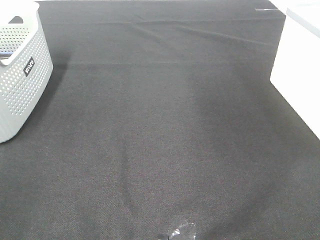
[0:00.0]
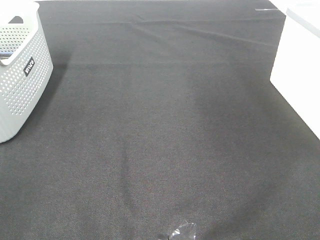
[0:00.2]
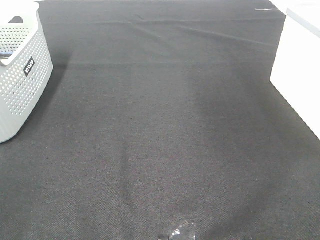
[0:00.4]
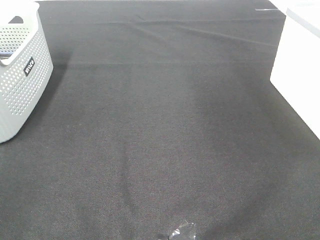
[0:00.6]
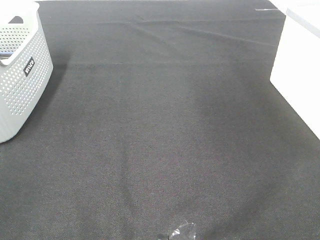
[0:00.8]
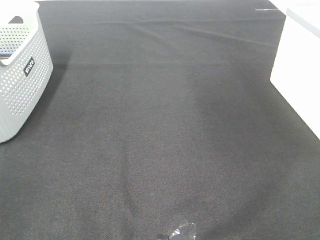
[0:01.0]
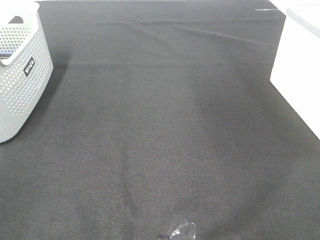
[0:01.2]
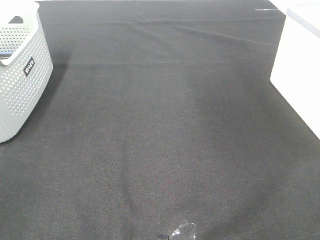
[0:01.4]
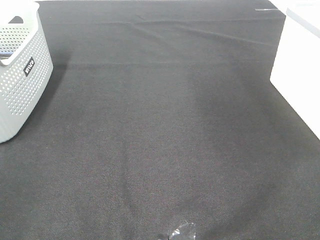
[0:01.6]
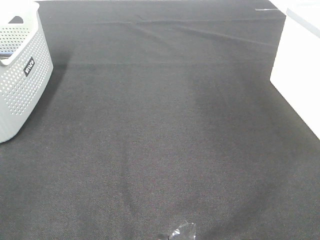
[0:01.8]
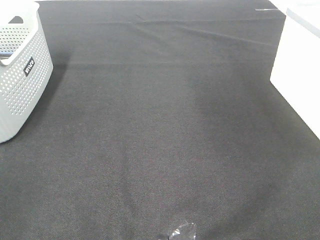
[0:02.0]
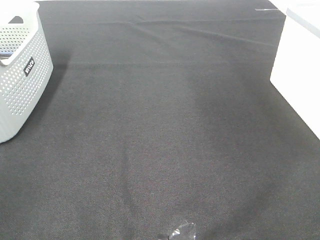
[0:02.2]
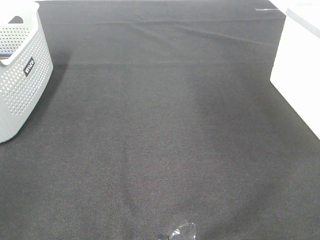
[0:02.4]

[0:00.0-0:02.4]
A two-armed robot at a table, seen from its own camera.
0:01.2 to 0:02.4: Both grippers stay put.

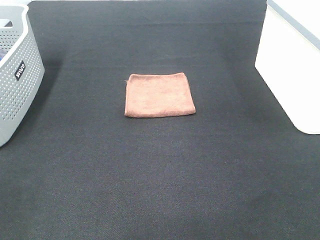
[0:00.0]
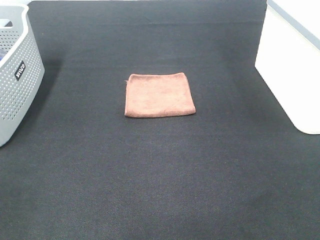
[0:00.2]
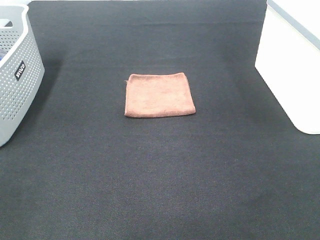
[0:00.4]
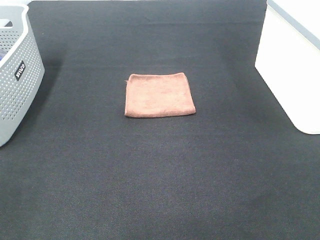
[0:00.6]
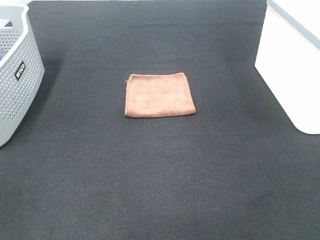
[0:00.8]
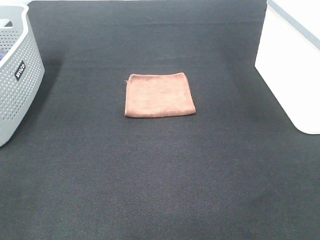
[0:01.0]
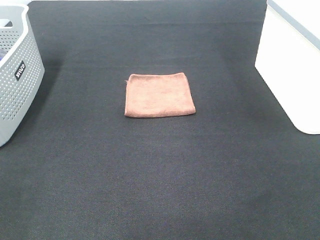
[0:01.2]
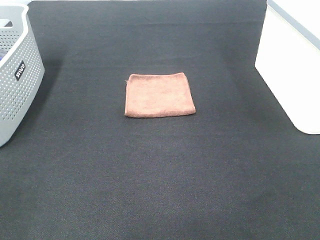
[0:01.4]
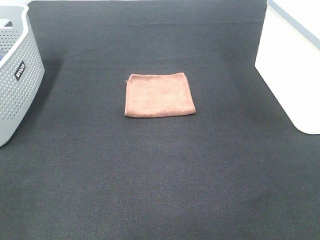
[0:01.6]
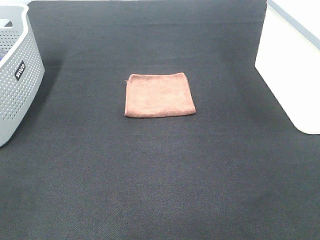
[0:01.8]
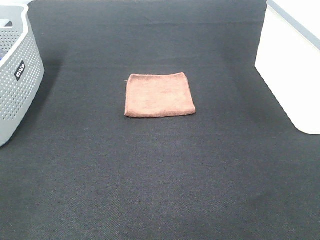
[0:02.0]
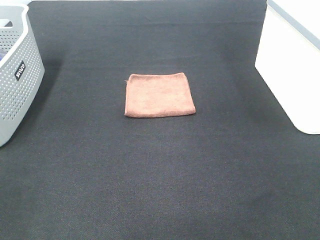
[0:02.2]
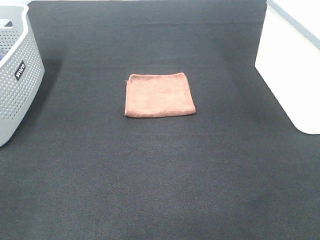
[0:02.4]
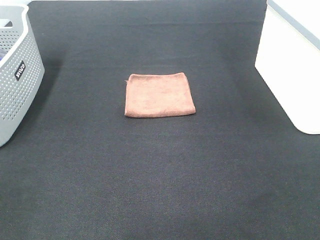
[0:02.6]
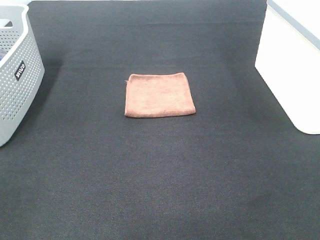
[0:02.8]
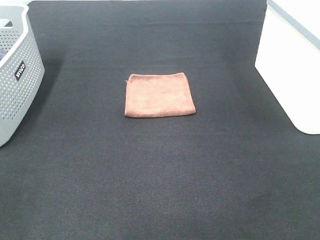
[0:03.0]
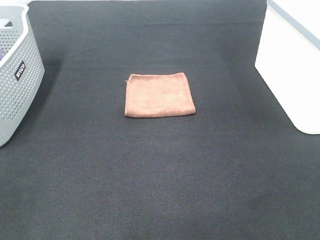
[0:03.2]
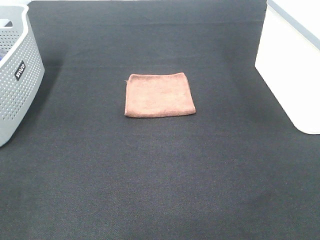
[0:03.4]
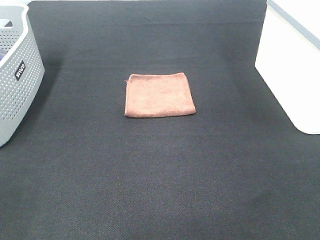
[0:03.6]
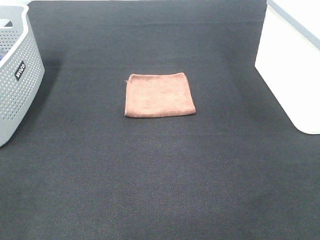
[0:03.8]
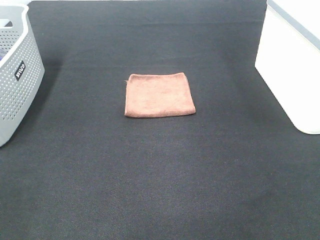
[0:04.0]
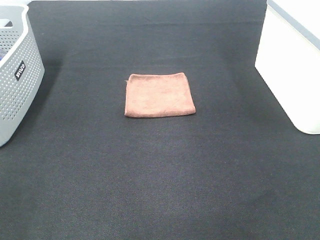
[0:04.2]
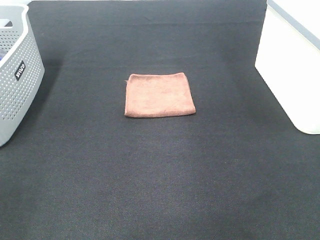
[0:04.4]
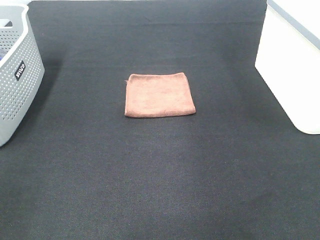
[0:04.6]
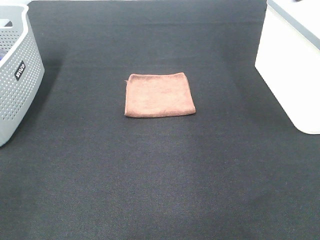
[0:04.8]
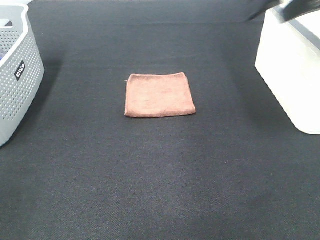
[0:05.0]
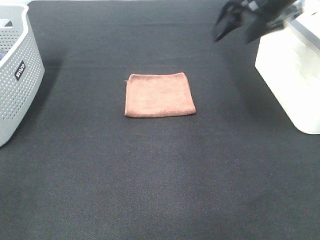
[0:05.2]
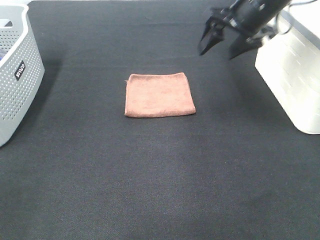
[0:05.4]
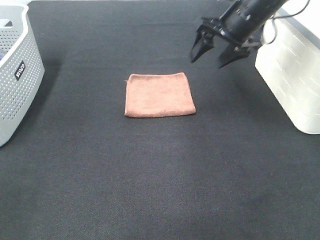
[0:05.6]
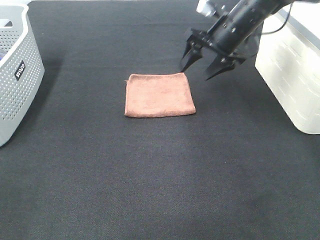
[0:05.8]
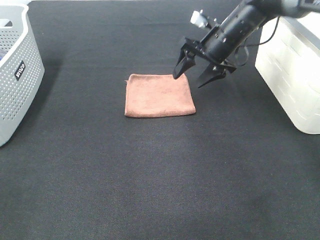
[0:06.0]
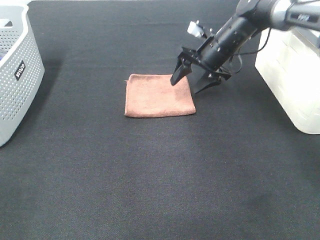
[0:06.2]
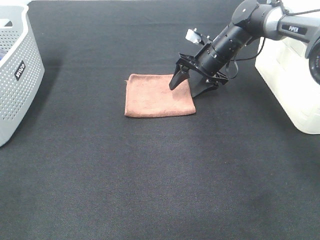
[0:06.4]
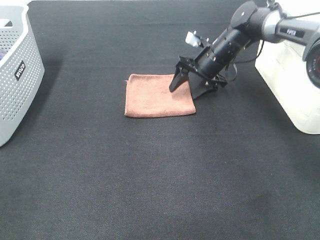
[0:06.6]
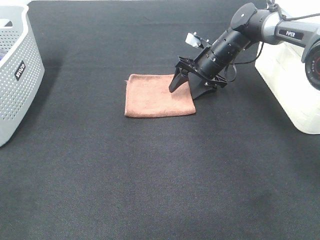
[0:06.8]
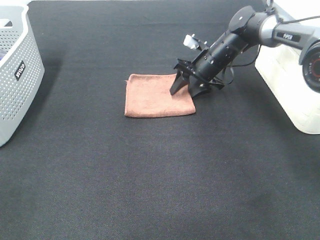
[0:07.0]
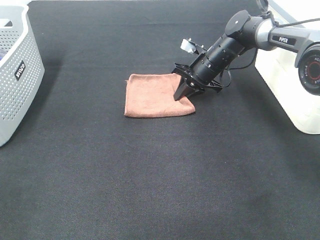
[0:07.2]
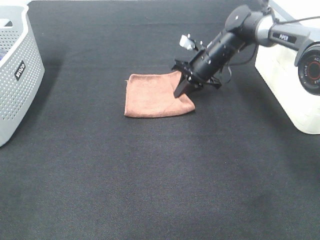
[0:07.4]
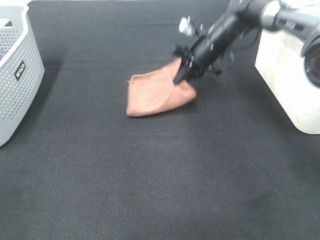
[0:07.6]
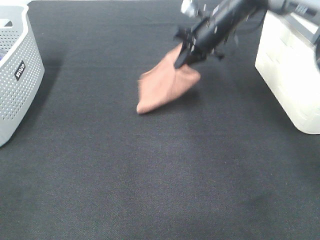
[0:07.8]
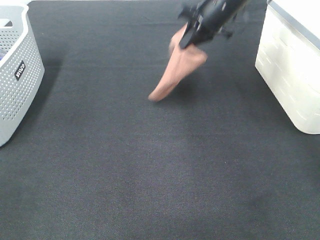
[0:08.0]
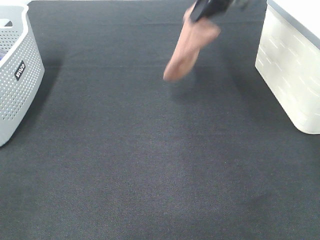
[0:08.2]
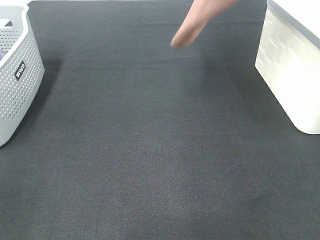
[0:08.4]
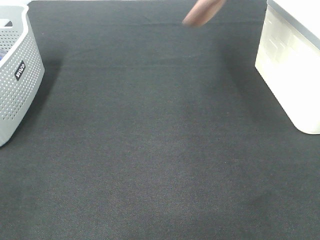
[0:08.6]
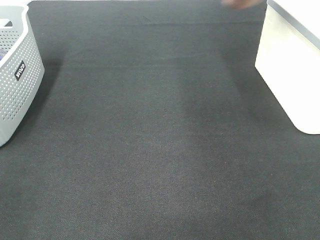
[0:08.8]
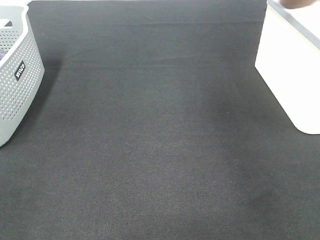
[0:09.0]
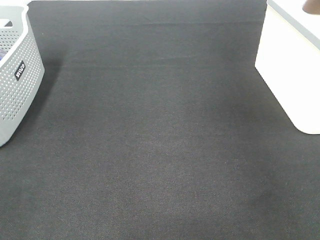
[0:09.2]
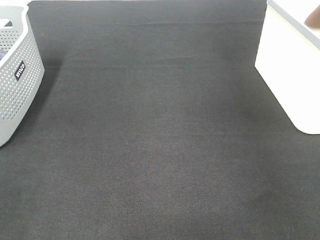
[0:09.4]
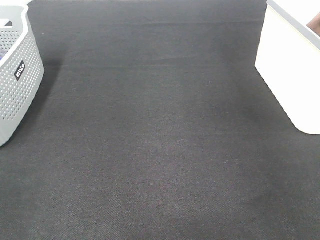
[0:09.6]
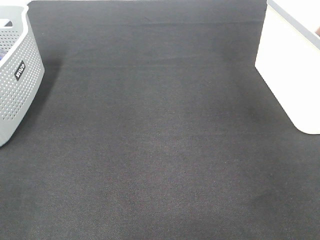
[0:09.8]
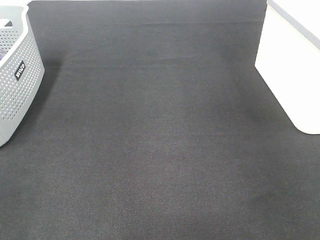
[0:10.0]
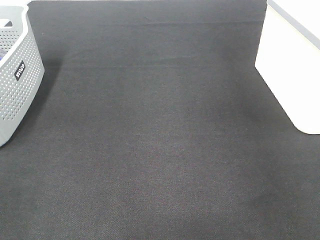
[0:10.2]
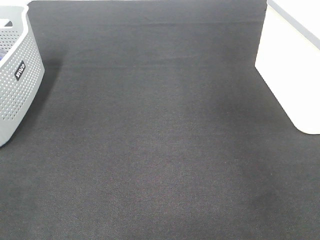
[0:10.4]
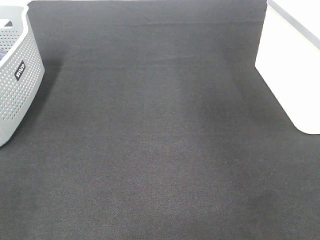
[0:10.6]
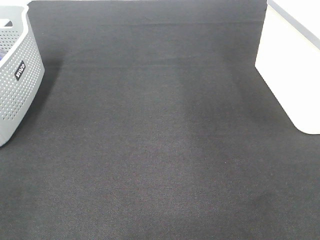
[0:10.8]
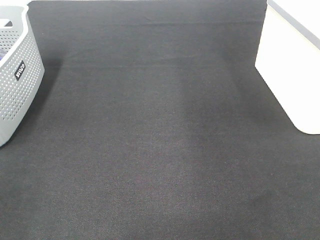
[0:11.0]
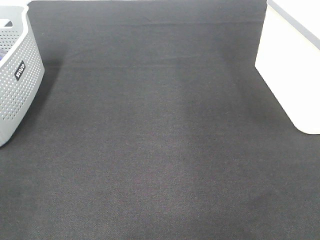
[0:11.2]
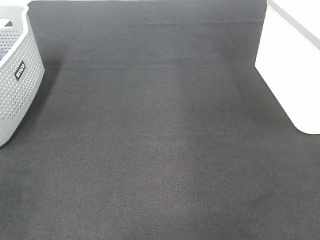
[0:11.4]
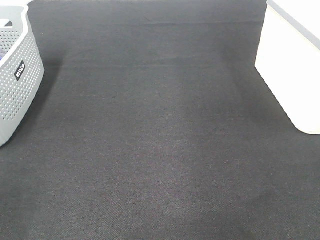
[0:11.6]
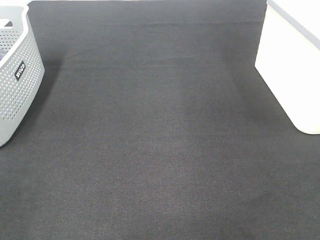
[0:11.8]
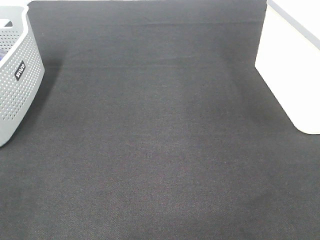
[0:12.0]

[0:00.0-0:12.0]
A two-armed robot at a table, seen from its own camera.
Step, 0:00.0 to 0:07.4: Right hand: grab the folded brown towel.
Step, 0:07.6 to 0:10.4: Right hand: place the brown towel in right basket.
0:00.0 to 0:03.0: Both grippers stay put.
0:04.4 to 0:06.0: The right gripper moves forward, downward and to the left, about 40 cm.
0:06.0 to 0:07.6: The right gripper closes up.
0:07.6 to 0:09.0: The right gripper goes some 35 cm upward and to the right.

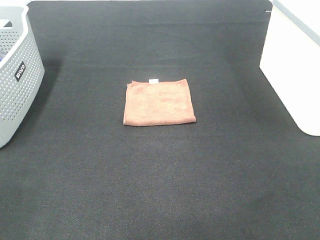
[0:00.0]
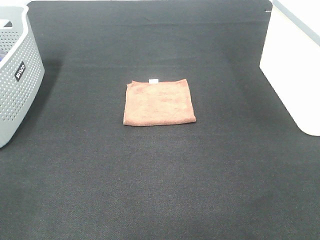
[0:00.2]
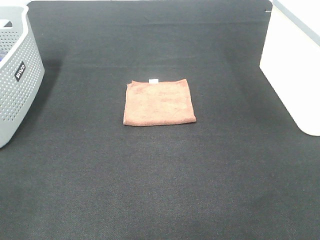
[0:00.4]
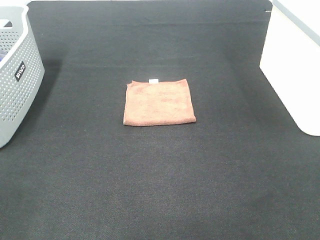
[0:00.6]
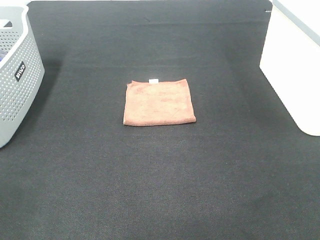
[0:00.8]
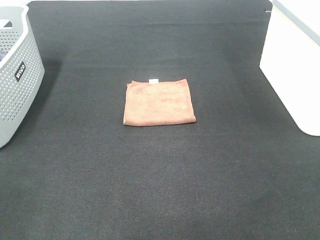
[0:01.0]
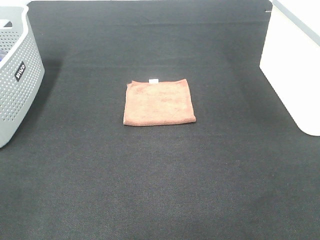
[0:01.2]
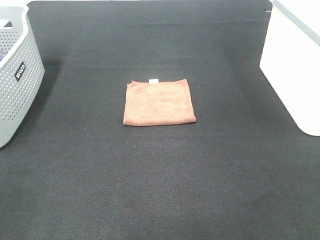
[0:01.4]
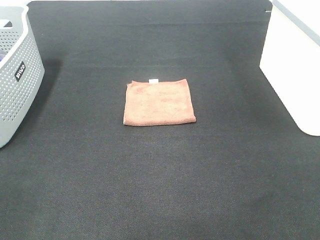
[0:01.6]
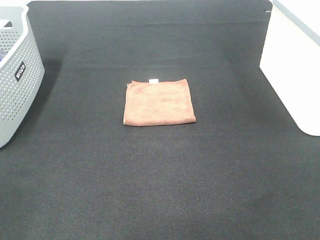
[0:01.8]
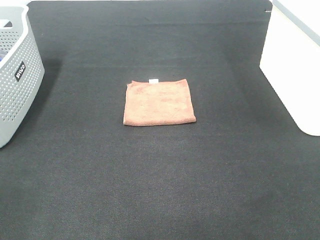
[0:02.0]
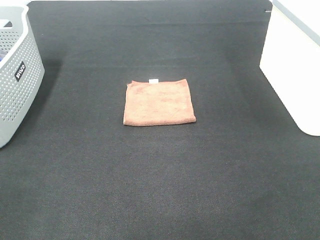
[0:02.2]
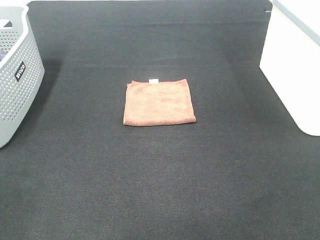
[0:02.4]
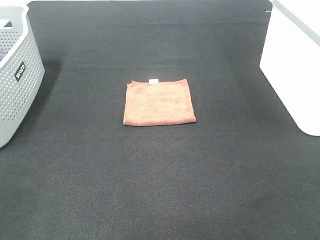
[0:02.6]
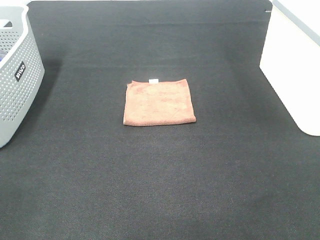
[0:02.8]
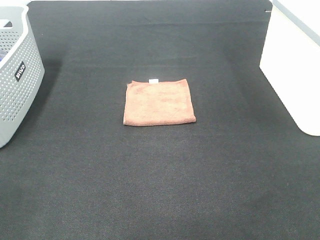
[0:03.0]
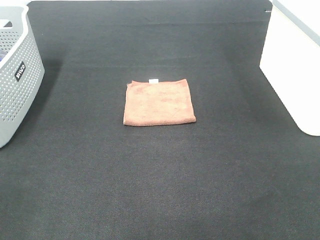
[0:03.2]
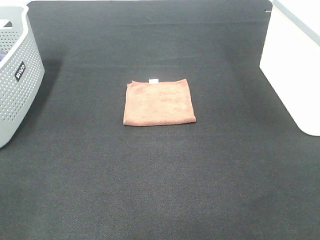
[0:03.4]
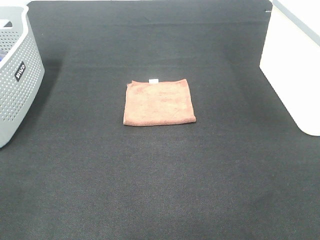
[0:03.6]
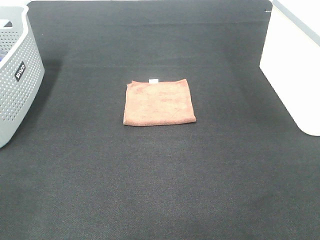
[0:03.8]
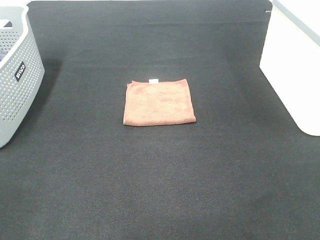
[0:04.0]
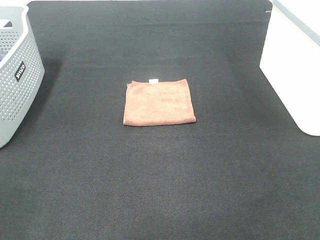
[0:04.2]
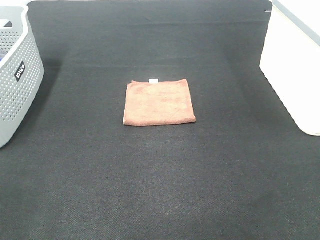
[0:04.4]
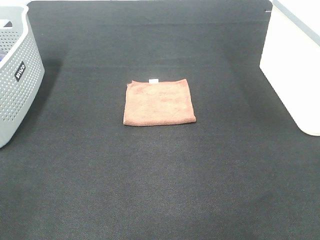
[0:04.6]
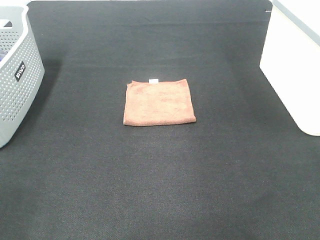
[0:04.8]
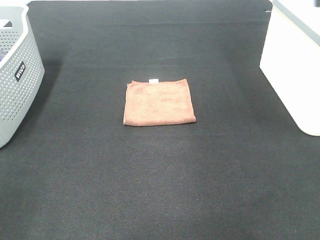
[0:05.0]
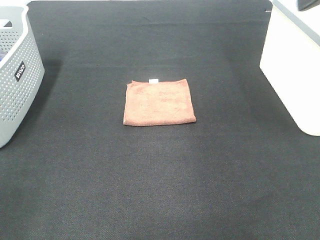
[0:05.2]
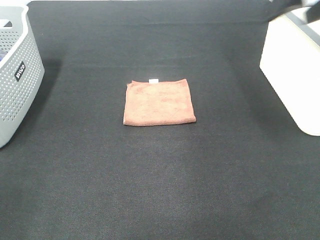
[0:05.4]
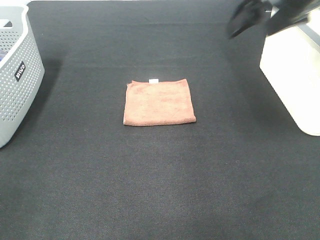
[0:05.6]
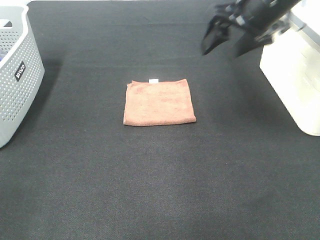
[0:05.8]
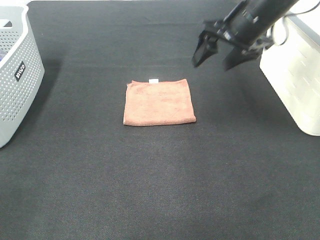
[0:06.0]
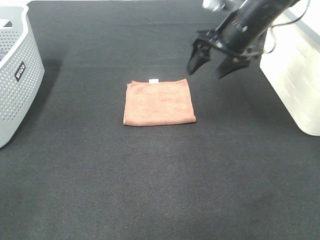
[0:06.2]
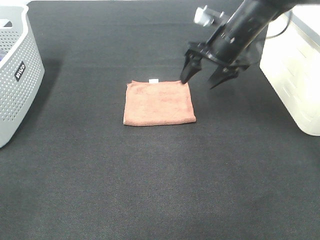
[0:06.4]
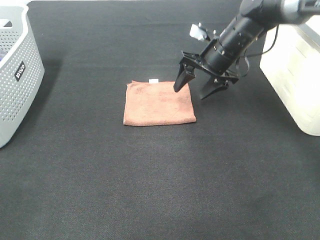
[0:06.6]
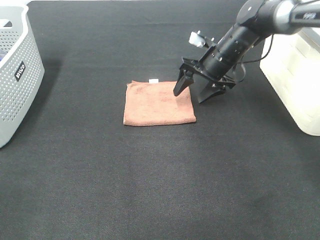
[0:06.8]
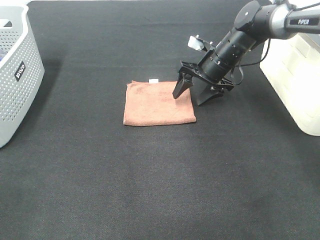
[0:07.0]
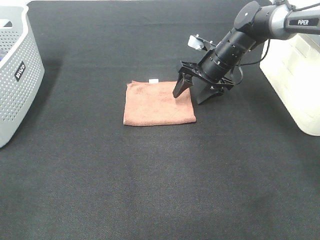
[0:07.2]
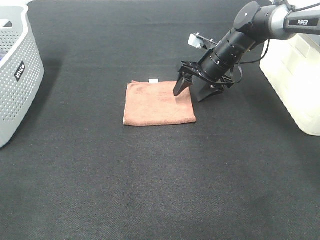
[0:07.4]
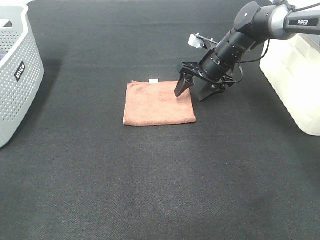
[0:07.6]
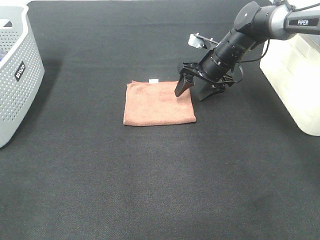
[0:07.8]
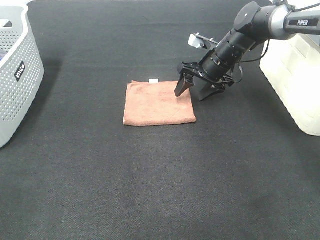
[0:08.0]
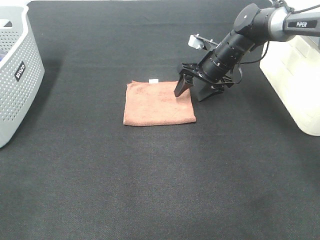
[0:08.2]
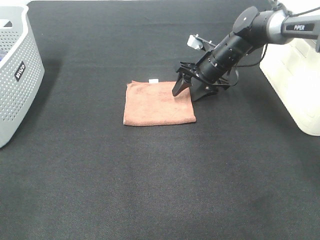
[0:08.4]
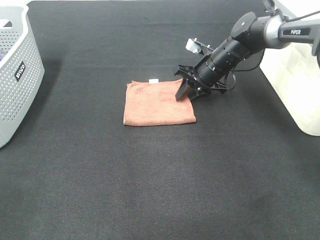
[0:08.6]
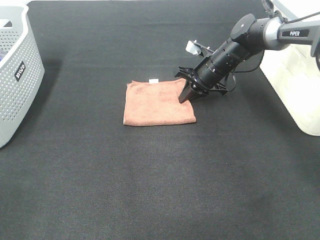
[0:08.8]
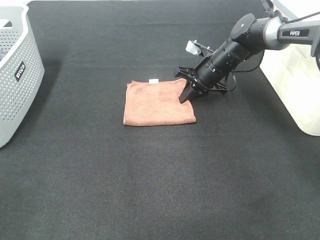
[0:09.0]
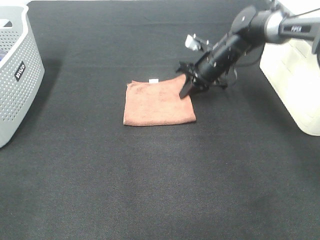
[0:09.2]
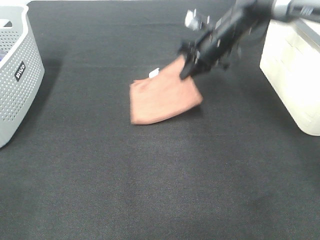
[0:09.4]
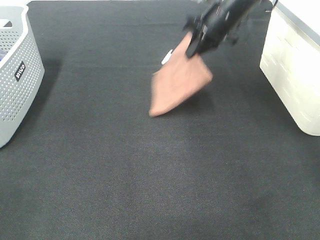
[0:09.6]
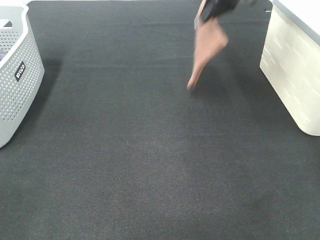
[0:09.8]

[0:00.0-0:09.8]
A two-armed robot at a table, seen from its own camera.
Step, 0:00.0 to 0:09.2: Right hand: grab the folded brown towel.
0:00.0 to 0:02.8: Neither gripper changes place.
0:04.2 to 0:05.6: The right gripper moves forward, roughly 30 cm.
0:05.6 to 0:07.0: The right gripper moves downward and forward, some 25 cm.
0:07.0 to 0:08.4: There are only small adjustments of the grippers.
0:08.4 to 0:09.8: The right gripper travels upward by roughly 20 cm, and closes its fingers.
